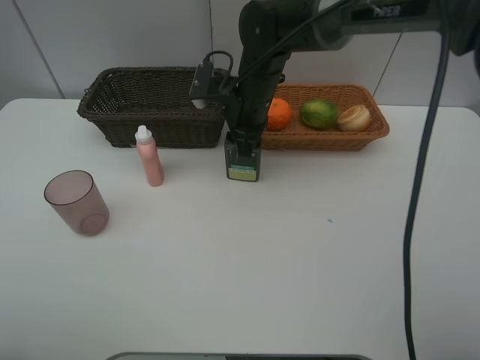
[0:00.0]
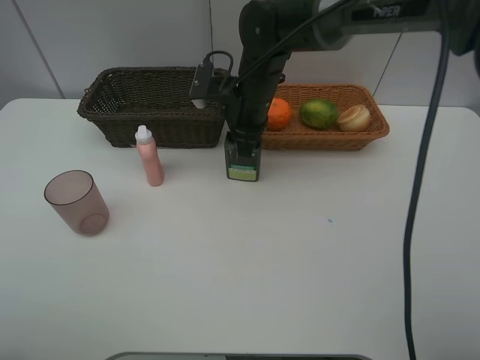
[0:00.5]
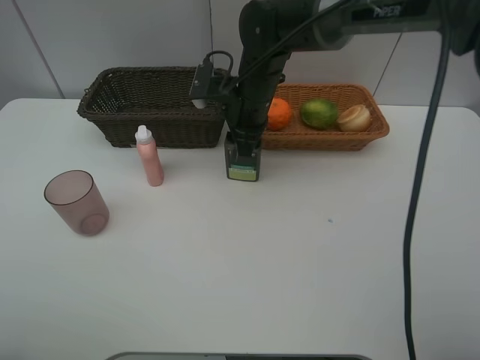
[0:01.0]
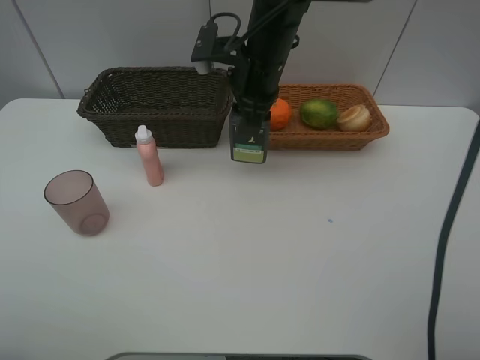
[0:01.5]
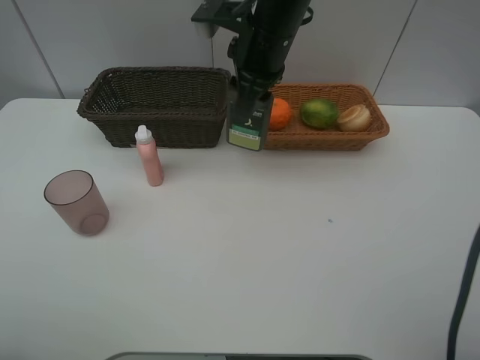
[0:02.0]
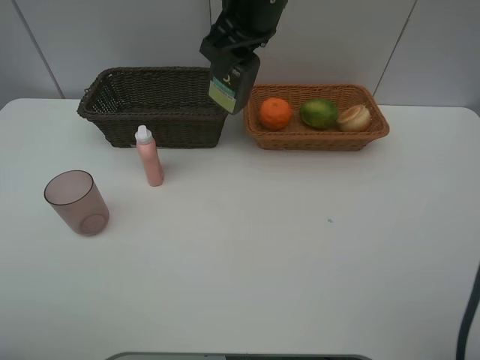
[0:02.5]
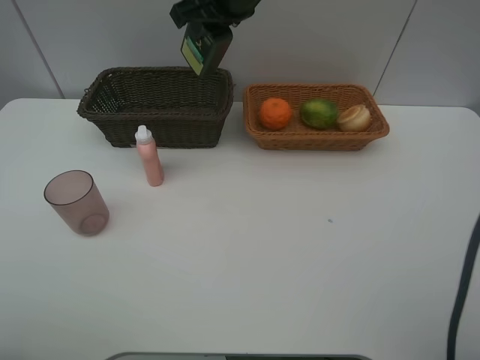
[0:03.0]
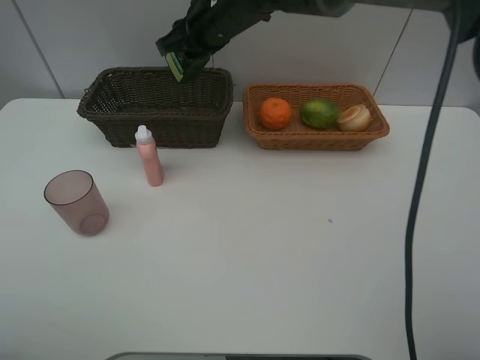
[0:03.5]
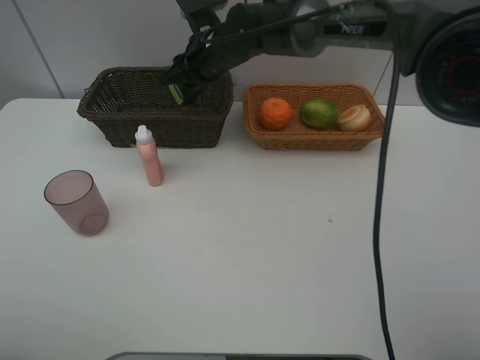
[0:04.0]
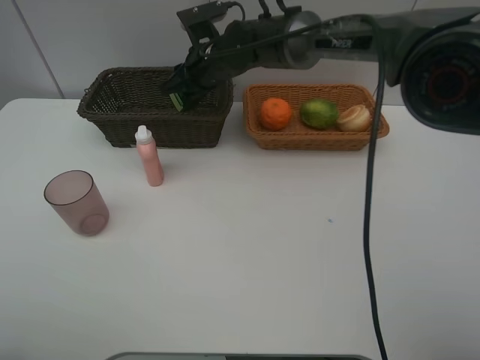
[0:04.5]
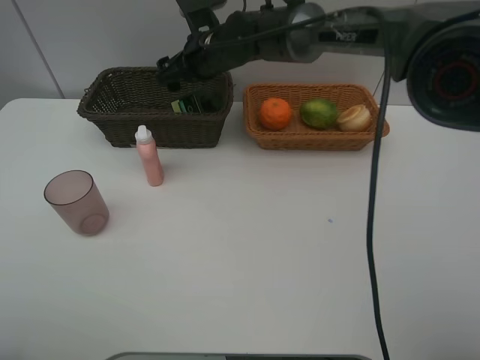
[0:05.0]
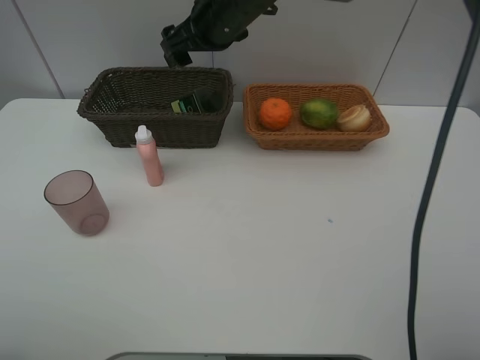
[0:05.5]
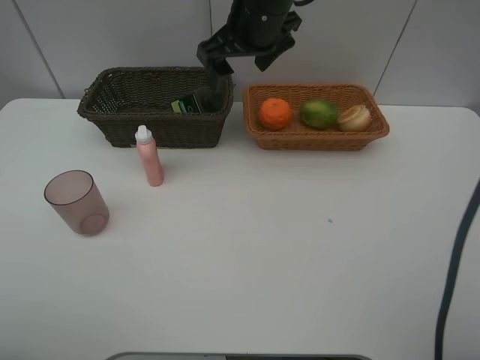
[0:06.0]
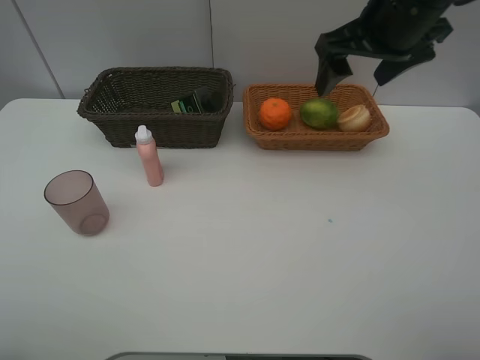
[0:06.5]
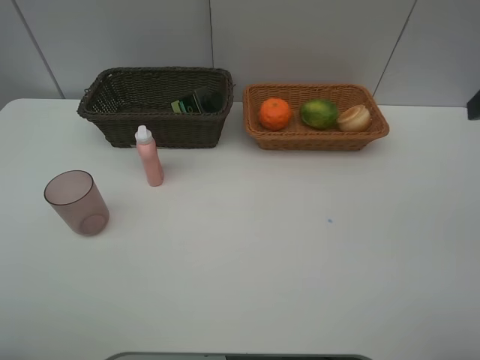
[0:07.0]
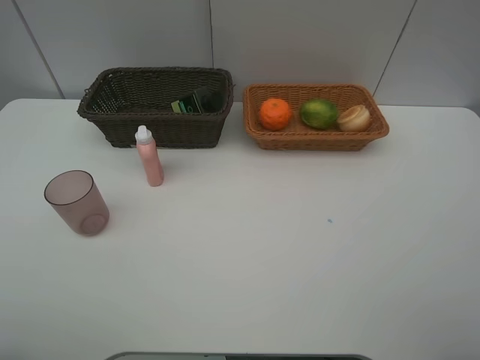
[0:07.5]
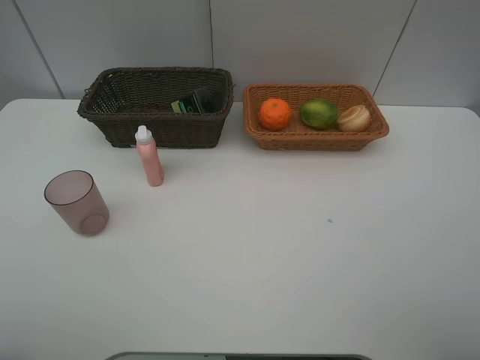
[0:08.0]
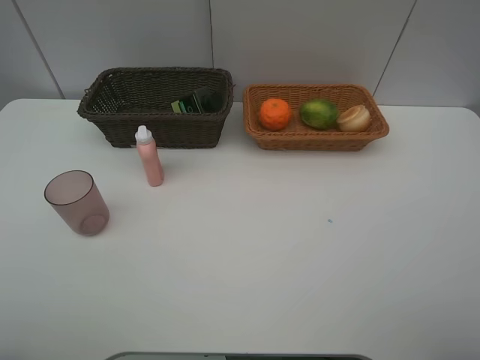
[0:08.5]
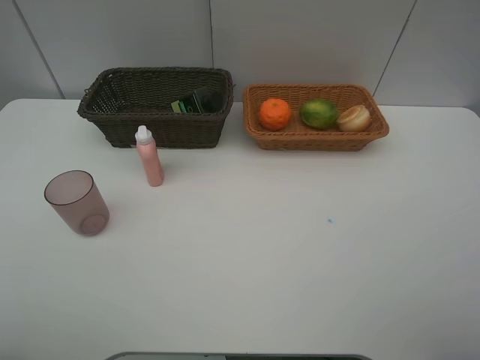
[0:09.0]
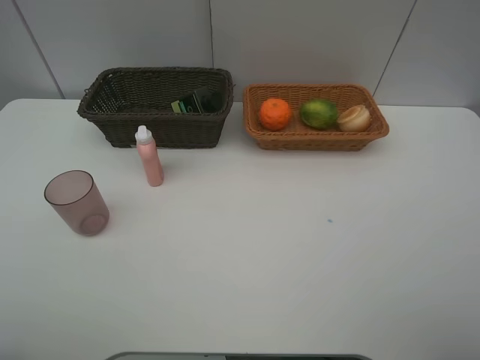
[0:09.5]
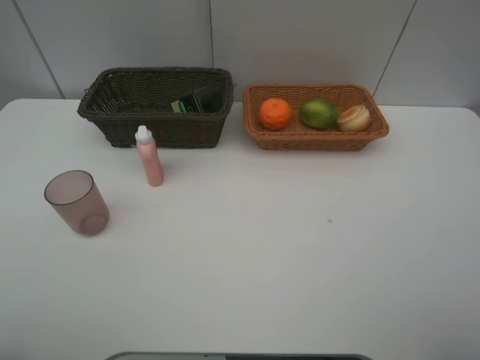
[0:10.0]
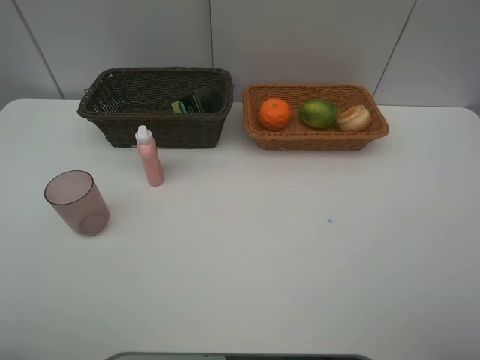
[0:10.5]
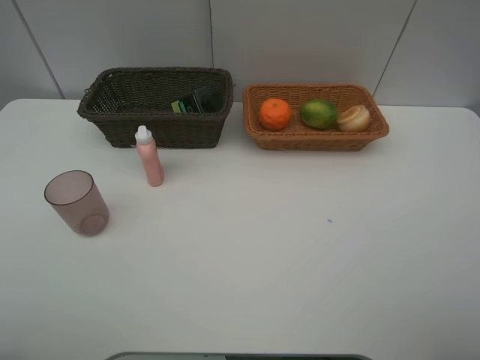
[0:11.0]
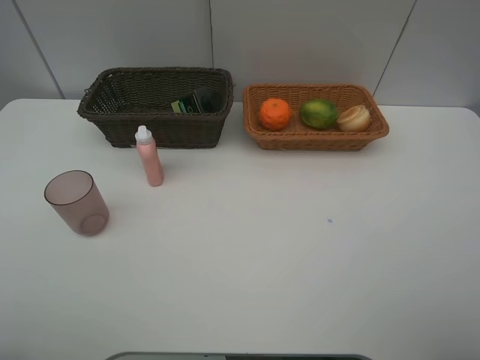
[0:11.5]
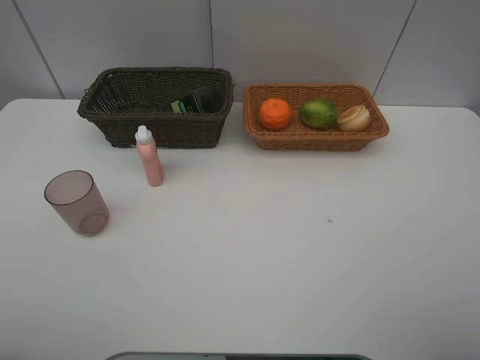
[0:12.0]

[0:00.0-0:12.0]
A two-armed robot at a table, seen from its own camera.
Task of the whole recording: place multiple objects separately in different baskets.
0:00.0 to 0:02.0: The right gripper moves upward, some 10 cm.
0:02.0 to 0:04.0: The right gripper moves forward, downward and to the left, about 15 cm.
0:04.0 to 0:06.0: The right gripper shifts roughly 15 cm upward, to the right and backward, and opens up.
0:06.0 to 0:08.0: The right gripper heads backward and to the right, covering some 40 cm.

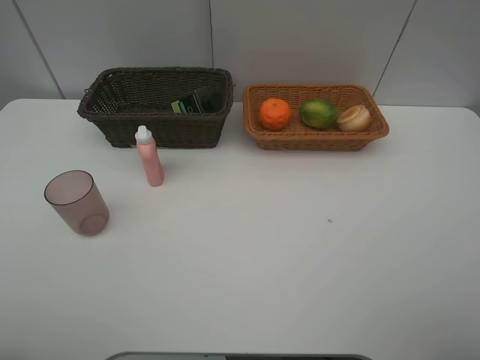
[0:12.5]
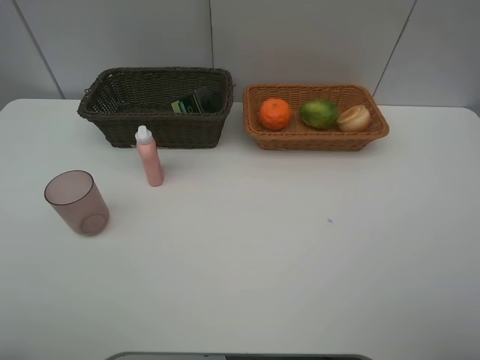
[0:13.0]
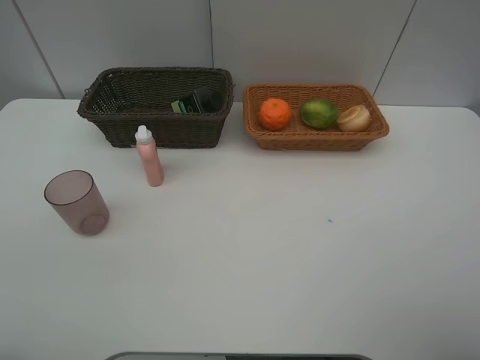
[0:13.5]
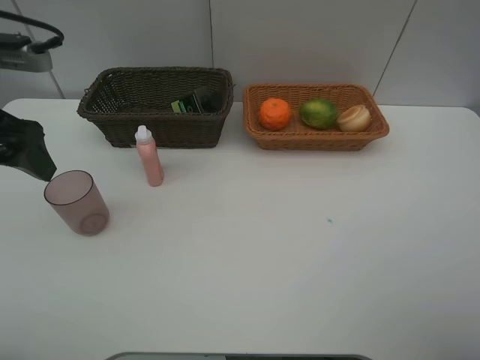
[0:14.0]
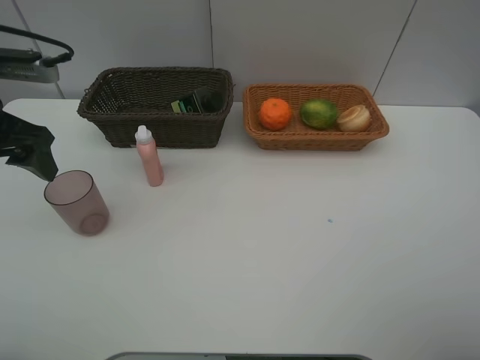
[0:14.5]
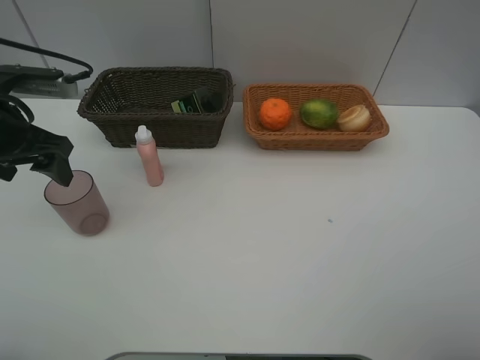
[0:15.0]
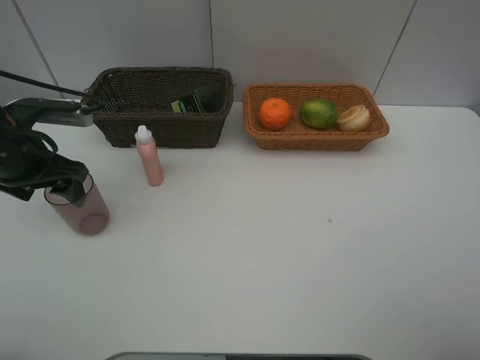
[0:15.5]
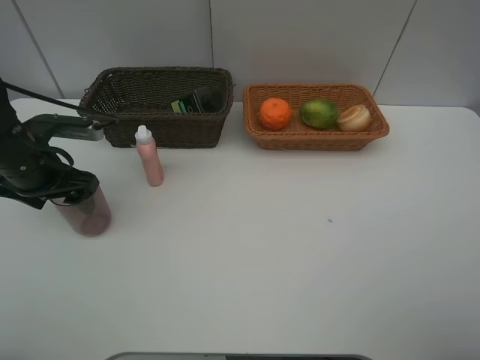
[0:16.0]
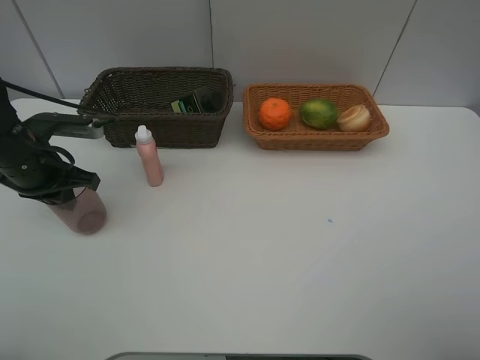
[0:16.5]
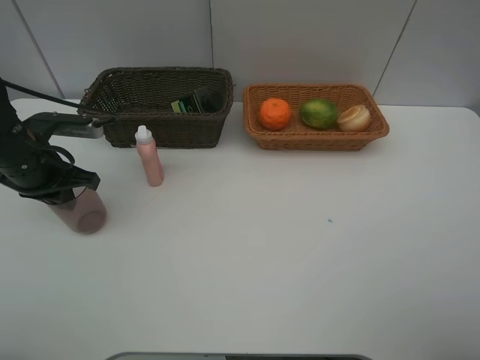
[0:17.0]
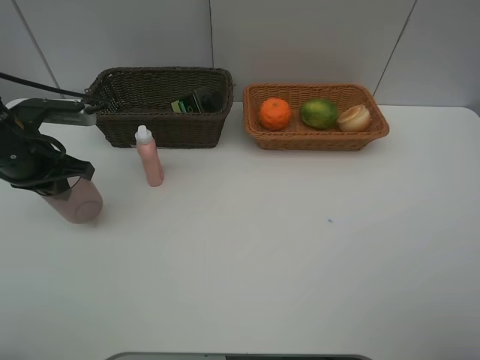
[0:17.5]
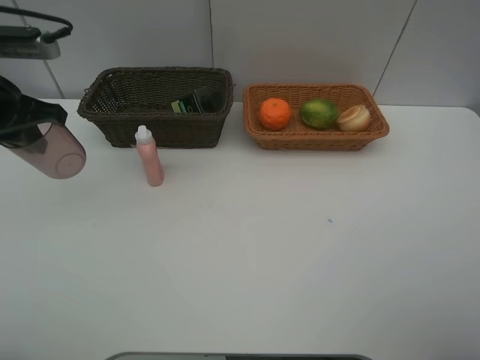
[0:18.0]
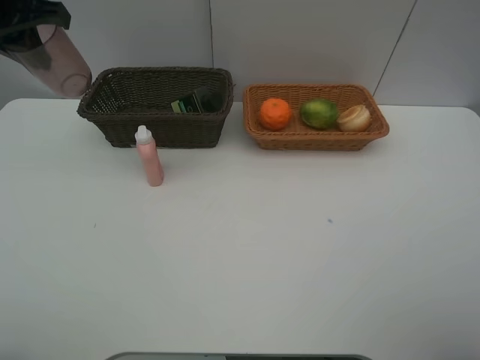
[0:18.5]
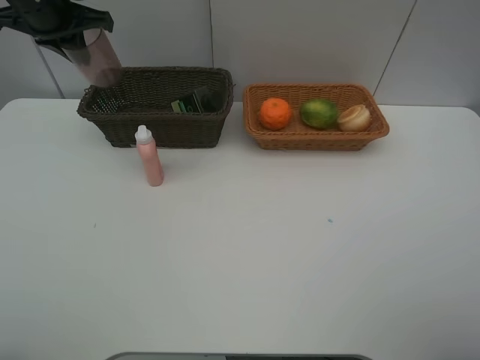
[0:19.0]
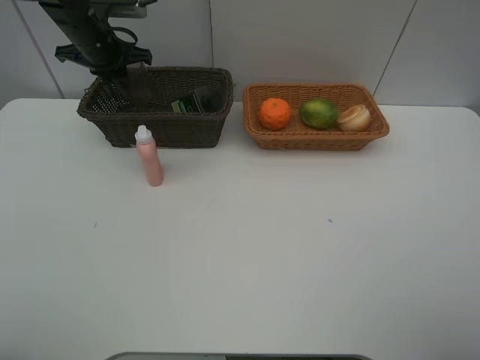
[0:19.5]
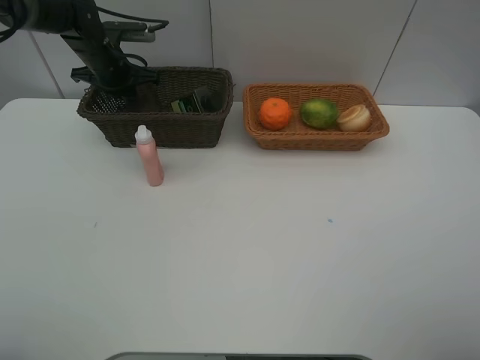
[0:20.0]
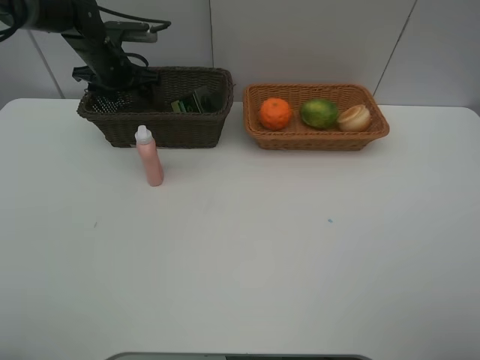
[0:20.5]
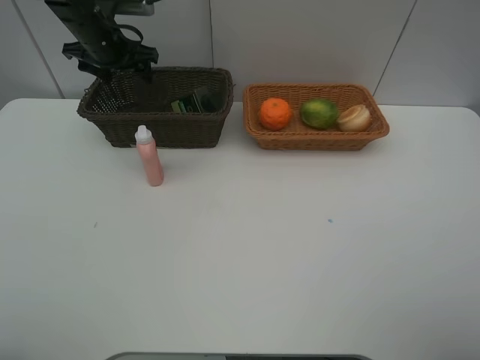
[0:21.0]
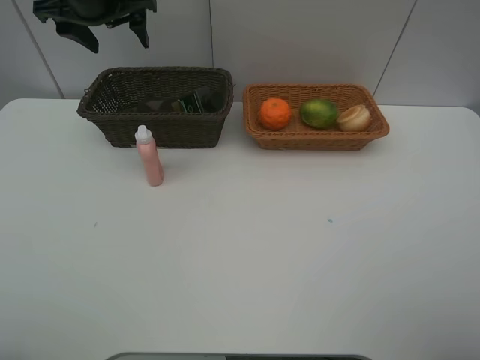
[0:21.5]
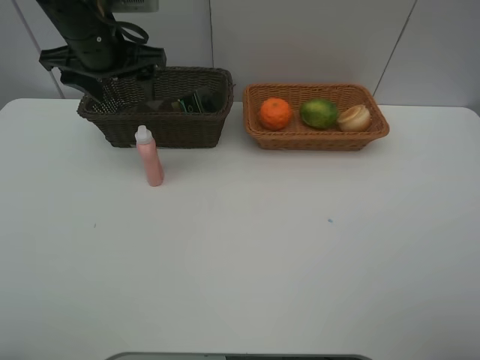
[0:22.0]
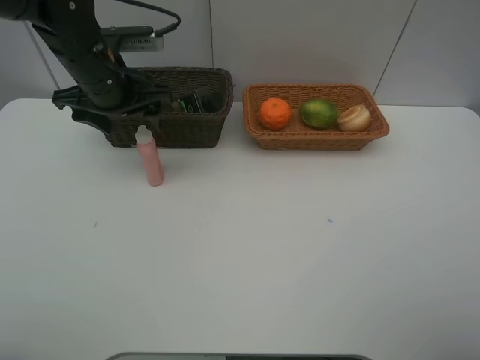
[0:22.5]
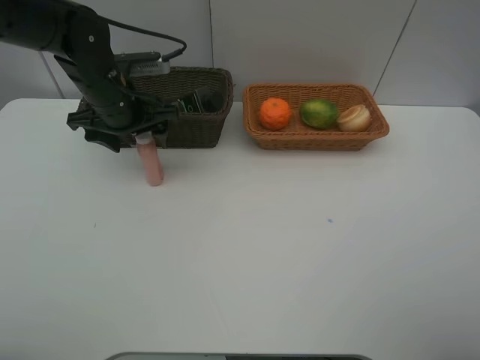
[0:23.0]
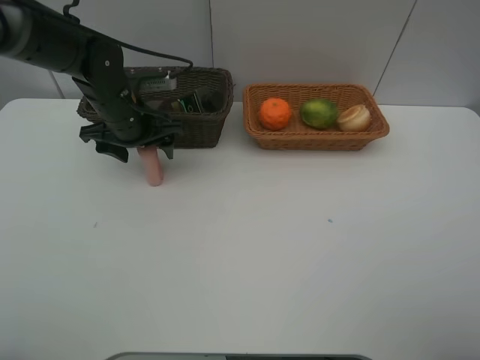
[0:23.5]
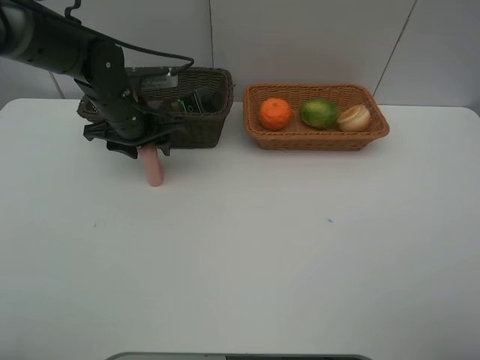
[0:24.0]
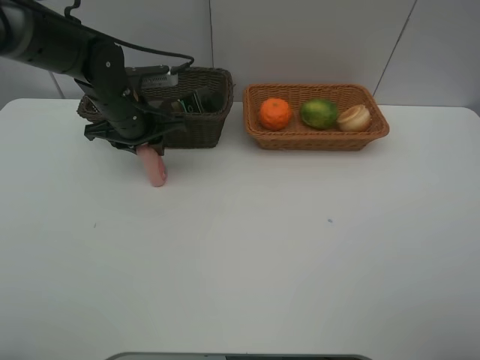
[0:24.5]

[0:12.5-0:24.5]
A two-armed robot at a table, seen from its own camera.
Task of the whole recording: place multiple objects separately in different baskets.
0:12.5 to 0:14.5: The left gripper shifts roughly 25 cm forward.
0:14.5 to 0:16.5: The left gripper heads downward, covering approximately 10 cm, and closes.
0:16.5 to 0:18.5: The left gripper is displaced upward by roughly 20 cm.
0:18.5 to 0:20.5: The left gripper shifts about 20 cm downward and forward, and opens up.
0:20.5 to 0:22.5: The left gripper is displaced backward by about 15 cm.
0:22.5 to 0:24.5: The left gripper shifts roughly 5 cm downward, and closes.

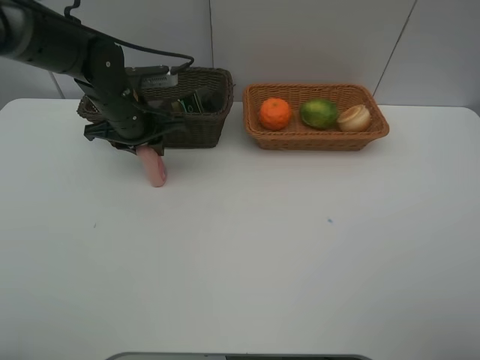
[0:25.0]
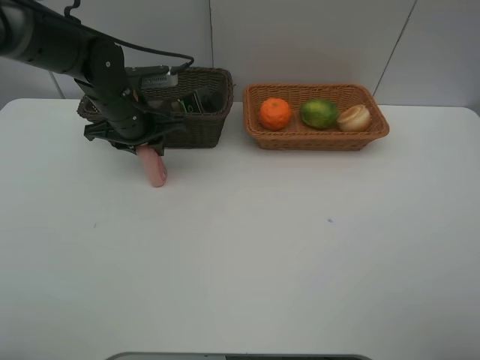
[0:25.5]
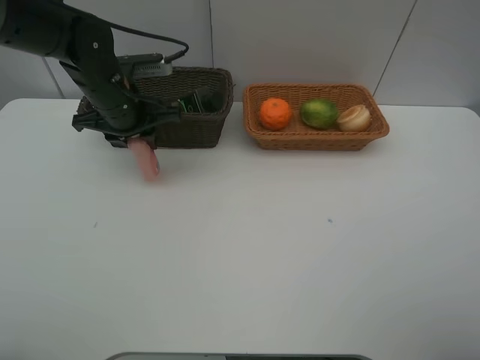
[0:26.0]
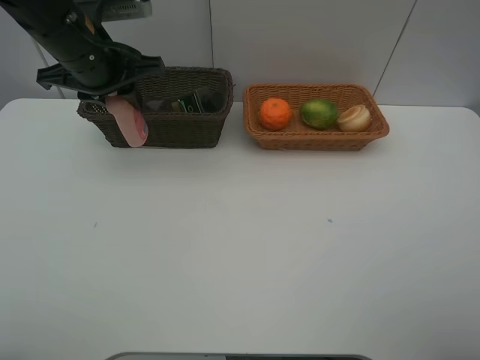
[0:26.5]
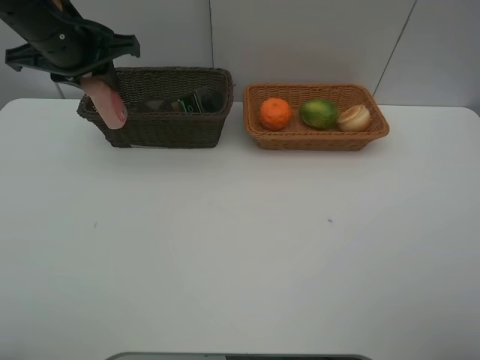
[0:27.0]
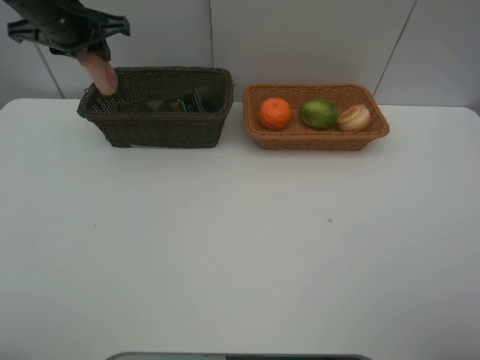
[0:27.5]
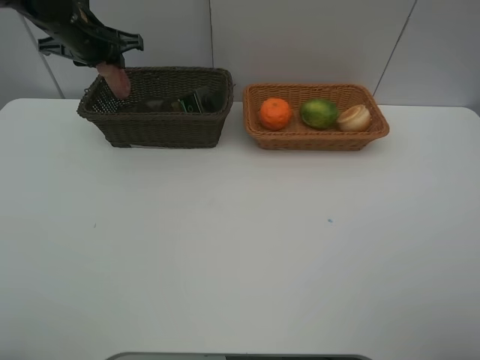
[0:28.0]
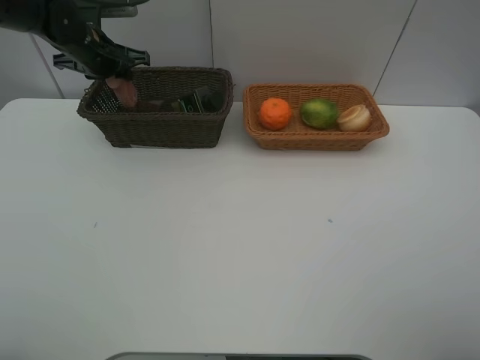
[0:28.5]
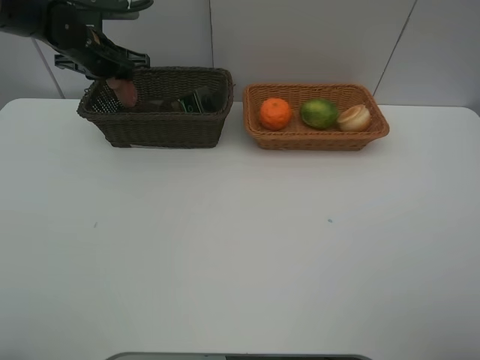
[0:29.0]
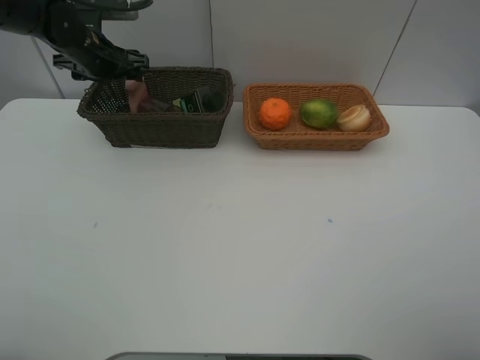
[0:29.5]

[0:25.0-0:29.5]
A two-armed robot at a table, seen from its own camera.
Task of the whole recording: place multiple objects separately in different baskets.
0:25.0 to 0:27.0: The left gripper travels upward by about 15 cm.
0:27.0 to 0:29.5: The left gripper travels forward and downward by about 15 cm, and opens up.
